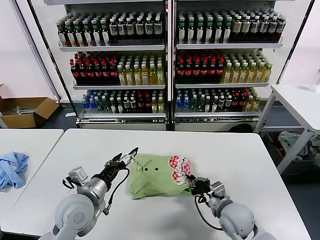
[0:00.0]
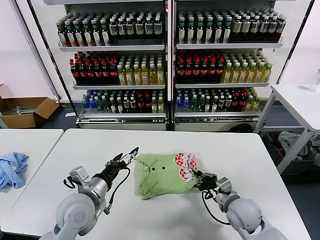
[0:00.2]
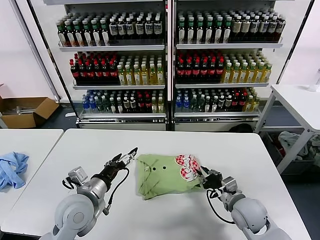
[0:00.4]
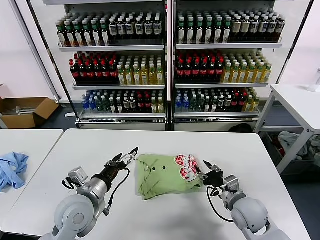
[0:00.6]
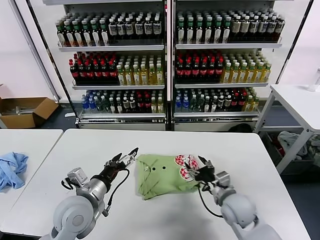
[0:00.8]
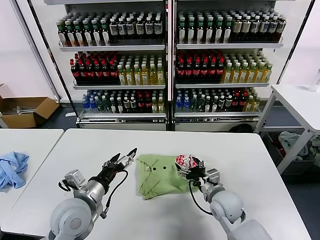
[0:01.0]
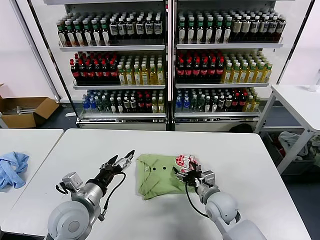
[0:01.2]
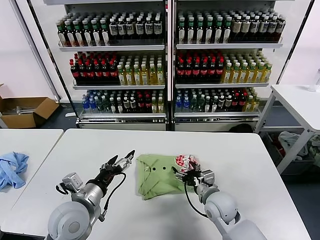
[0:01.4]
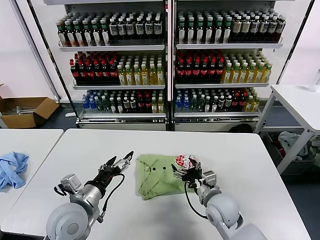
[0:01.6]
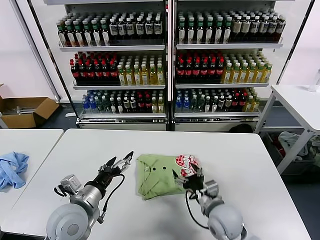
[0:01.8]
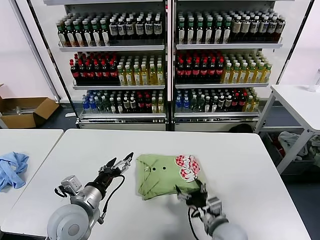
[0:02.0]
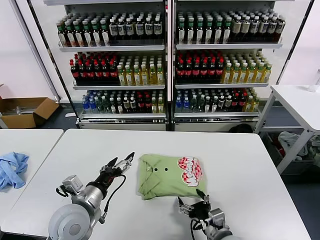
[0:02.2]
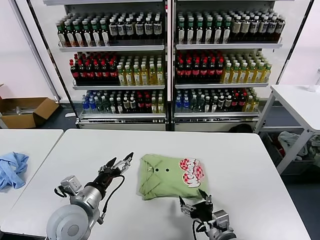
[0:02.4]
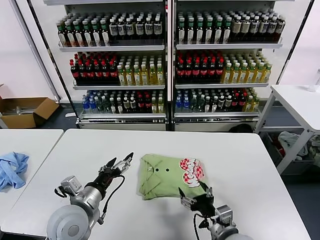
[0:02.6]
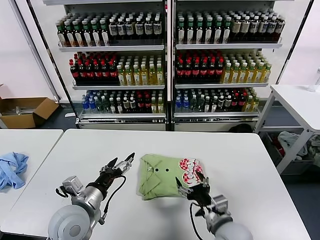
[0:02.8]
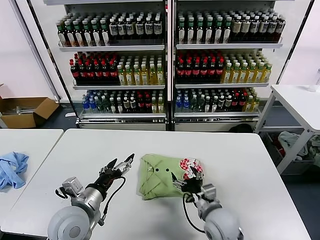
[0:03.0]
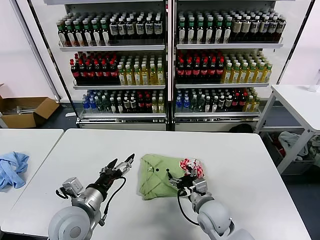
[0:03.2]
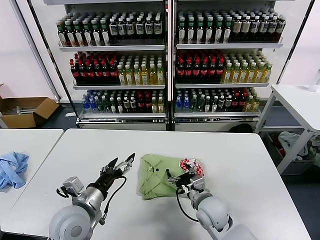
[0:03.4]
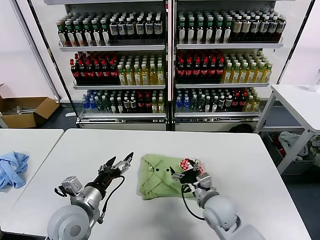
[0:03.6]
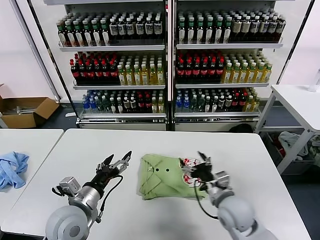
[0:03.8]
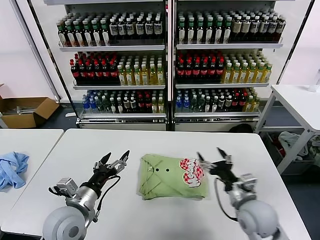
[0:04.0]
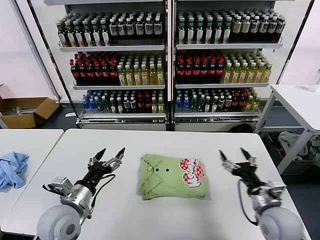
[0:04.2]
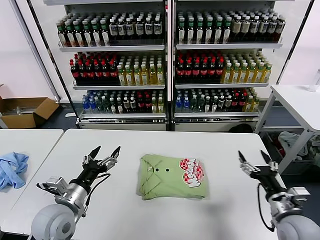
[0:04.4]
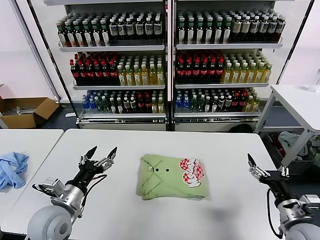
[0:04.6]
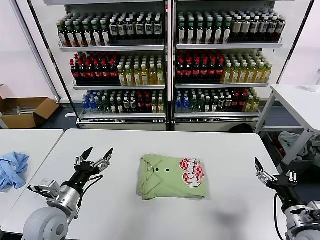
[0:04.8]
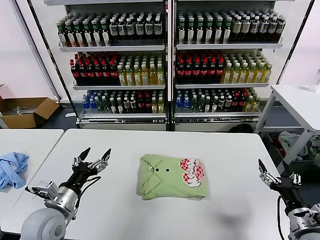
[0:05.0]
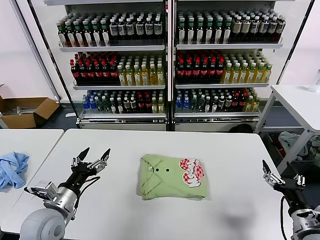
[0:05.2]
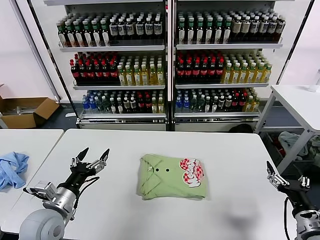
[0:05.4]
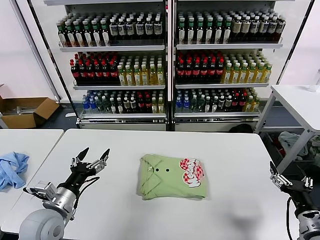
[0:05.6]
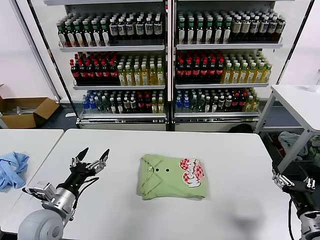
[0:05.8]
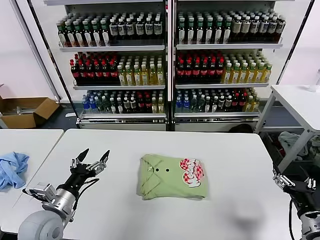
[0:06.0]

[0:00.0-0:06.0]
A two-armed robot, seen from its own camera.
Task of the whole recording: fold and organize the clothes.
Step, 0.0 to 2.6 s: Drag the clothes to the center of the table.
0.0 to 1.6 s: The right gripper moves roughly 5 cm, and opens up.
1.6 to 3.0 s: The right gripper is displaced backward by some 5 cm.
3.0 to 4.4 s: The right gripper travels to the right by roughly 15 cm.
4.4 to 6.0 s: The right gripper moves to the right and backward, about 10 cm.

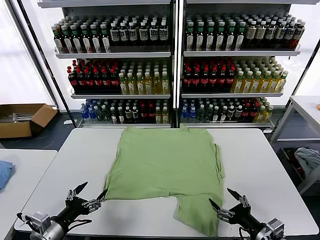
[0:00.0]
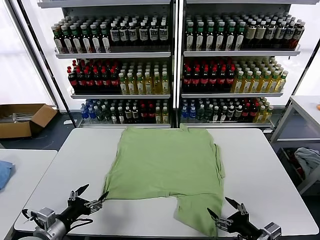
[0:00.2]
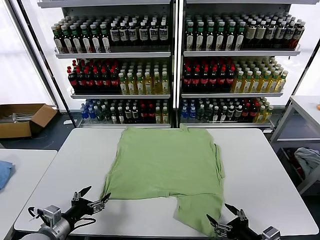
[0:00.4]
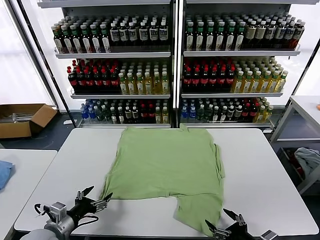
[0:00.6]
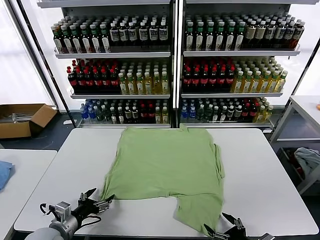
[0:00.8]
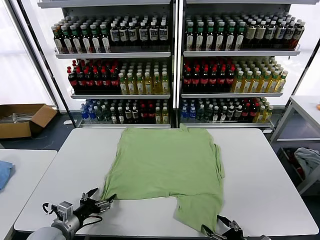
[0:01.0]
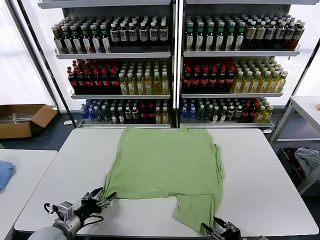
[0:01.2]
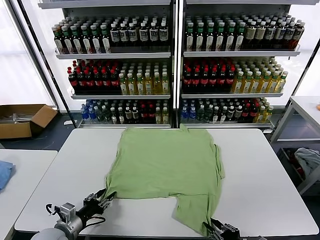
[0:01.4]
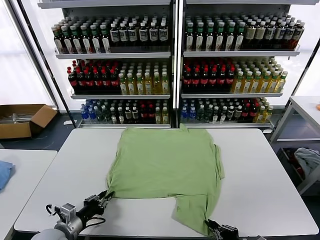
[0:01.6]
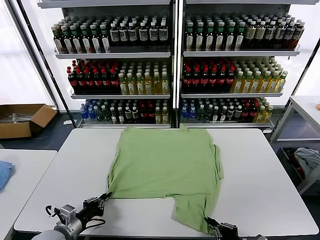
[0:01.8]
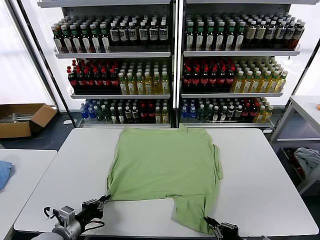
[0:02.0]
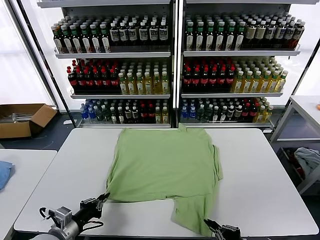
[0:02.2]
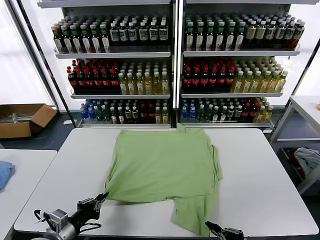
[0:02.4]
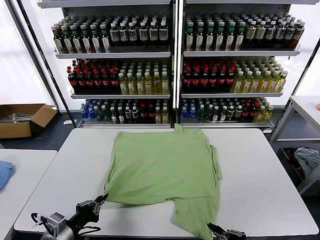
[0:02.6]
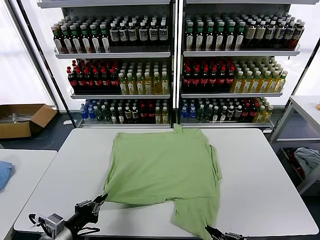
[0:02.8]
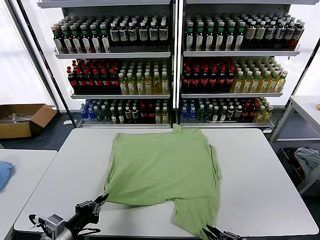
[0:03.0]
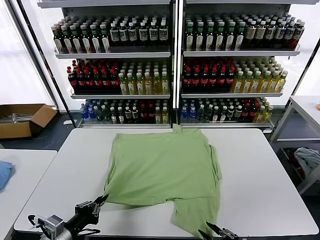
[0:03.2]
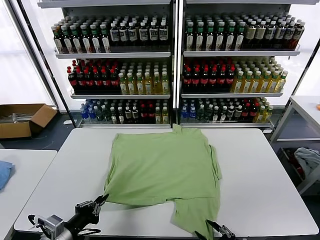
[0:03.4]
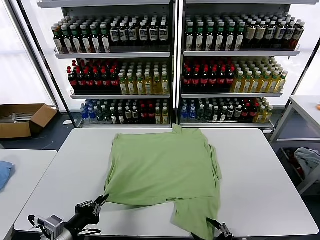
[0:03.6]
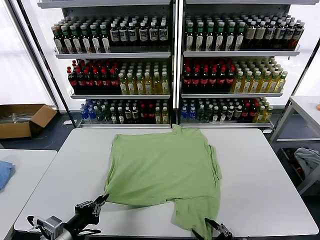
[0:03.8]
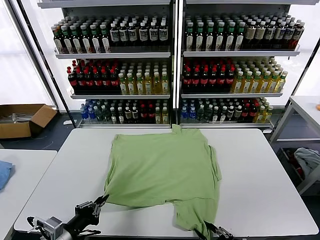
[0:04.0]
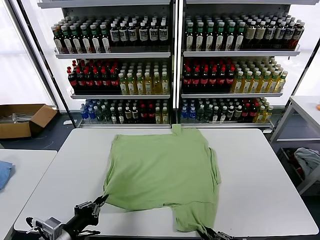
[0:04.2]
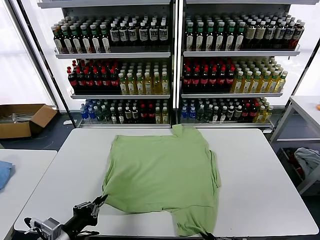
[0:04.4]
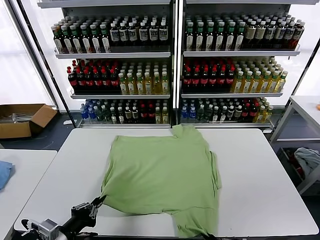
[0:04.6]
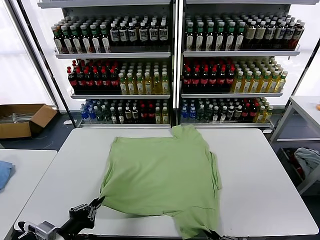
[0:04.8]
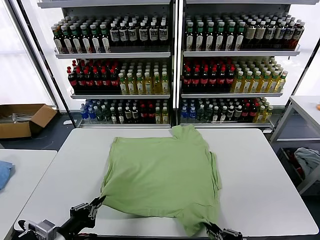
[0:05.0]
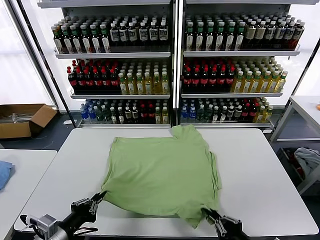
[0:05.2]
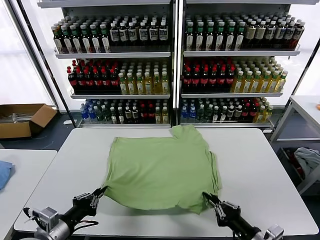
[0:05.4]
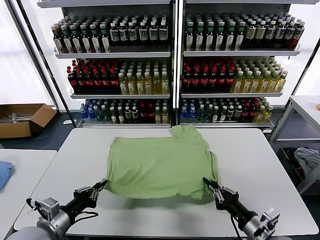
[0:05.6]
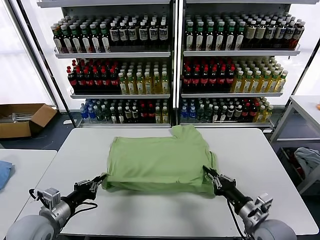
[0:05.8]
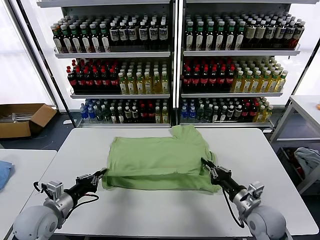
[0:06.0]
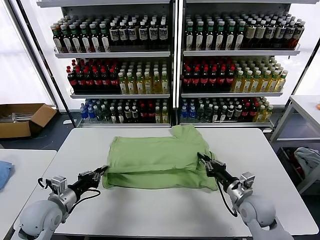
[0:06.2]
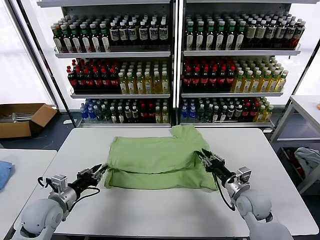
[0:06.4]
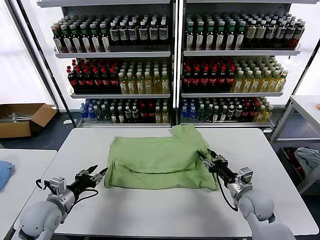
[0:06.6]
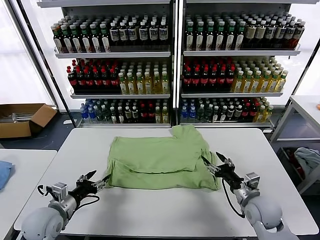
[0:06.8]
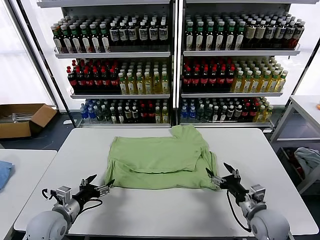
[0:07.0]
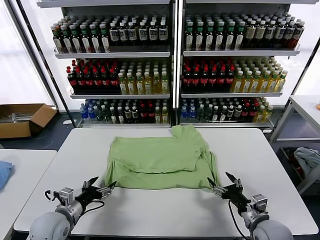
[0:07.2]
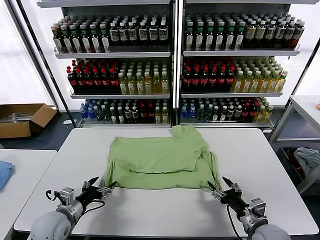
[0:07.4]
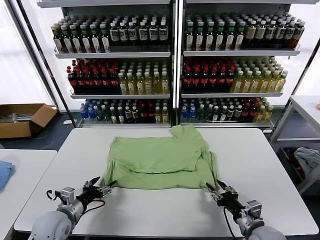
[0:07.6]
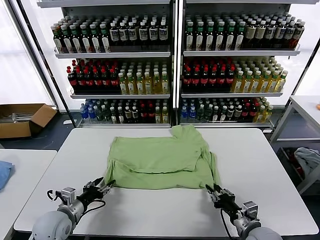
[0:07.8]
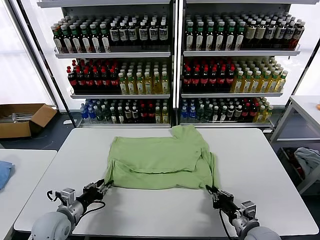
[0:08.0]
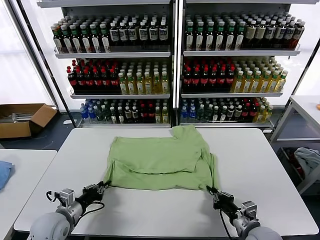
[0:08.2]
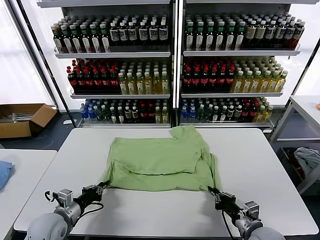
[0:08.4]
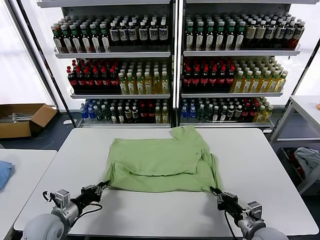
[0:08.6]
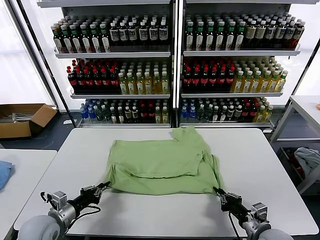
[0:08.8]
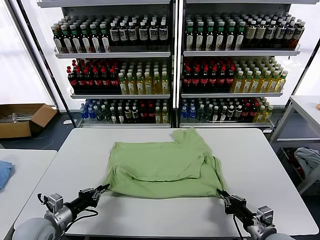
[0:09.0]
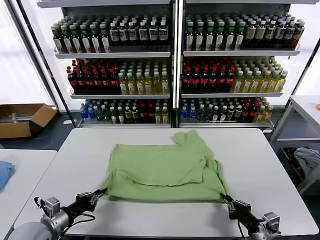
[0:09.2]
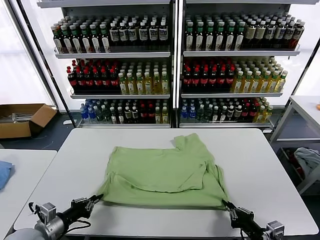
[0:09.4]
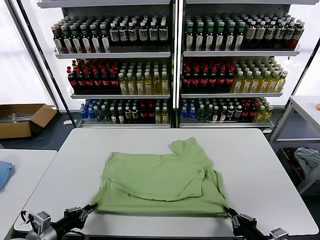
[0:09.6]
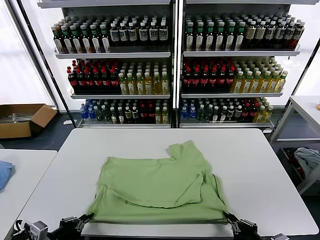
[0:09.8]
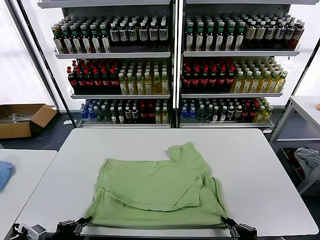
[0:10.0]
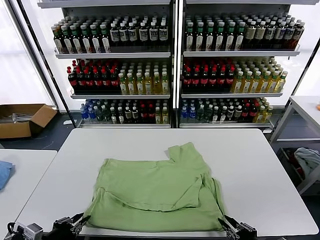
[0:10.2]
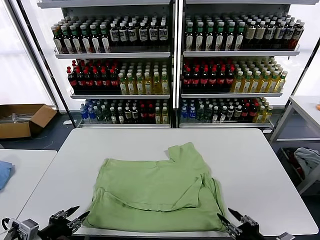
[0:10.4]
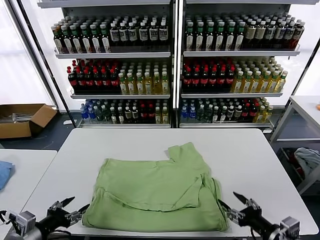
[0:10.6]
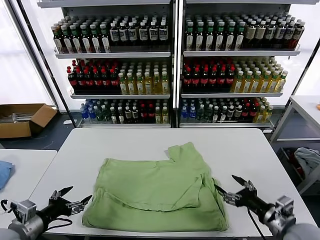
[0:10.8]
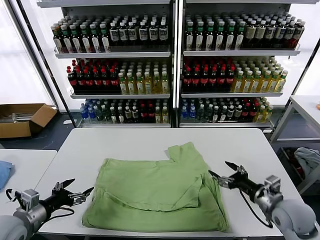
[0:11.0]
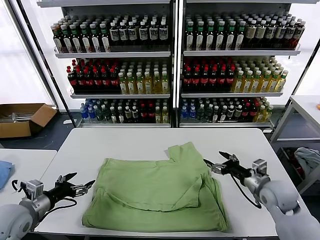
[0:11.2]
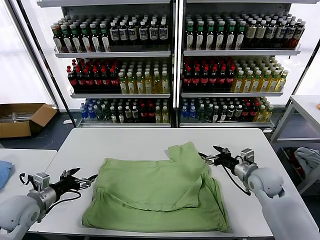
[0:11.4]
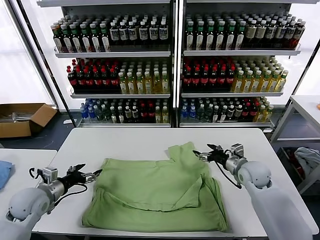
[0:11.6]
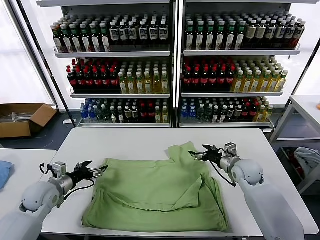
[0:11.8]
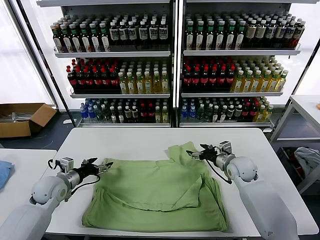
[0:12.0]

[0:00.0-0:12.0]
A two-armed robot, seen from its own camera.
Task of the whole recording: fold and organize the clothes.
Step, 0.0 to 1.8 s: use both grippers simultaneously to clamp the lower edge of the clothing fabric.
Step, 2.0 to 6.6 s: use both grippers to drag the lower edge of the fabric forward and fold it over the upper edge.
Step, 7.0 to 10.4 s: Drag the clothes downward with both gripper.
1.6 to 3.0 s: The right gripper opens; the left gripper travels upward and backward by roughly 10 cm.
3.0 to 4.4 s: The right gripper closes its fingers.
4.4 to 6.0 s: The right gripper moves forward, approximately 20 cm; the left gripper is displaced forward by about 10 cm.
6.0 to 7.6 s: The right gripper heads backward, covering approximately 5 cm, and opens up. The left gripper moves downward, approximately 5 cm, and opens.
7.6 to 9.0 s: The right gripper ends up roughly 5 cm from where it was, and closes its fingers; the left gripper closes up.
9.0 to 10.4 s: The right gripper is displaced upward and backward by about 10 cm, and opens its fingers. The left gripper moves backward and upward, approximately 10 cm, and opens up.
10.4 to 12.0 s: The grippers both shift forward by approximately 30 cm. The left gripper opens. Meanwhile the right gripper opens.

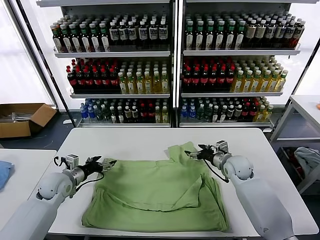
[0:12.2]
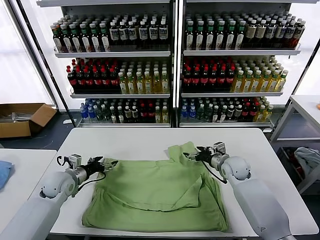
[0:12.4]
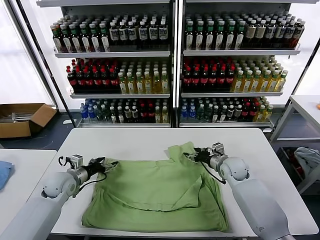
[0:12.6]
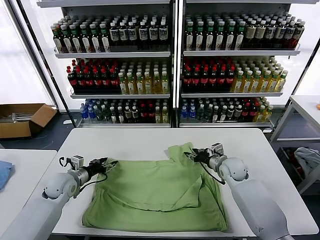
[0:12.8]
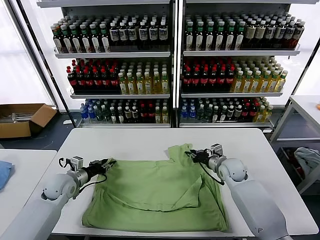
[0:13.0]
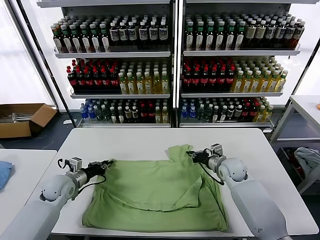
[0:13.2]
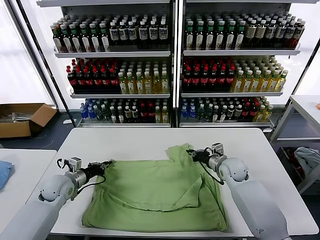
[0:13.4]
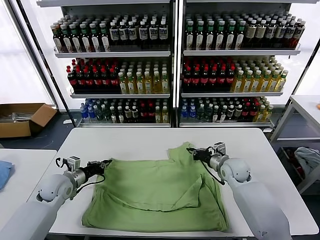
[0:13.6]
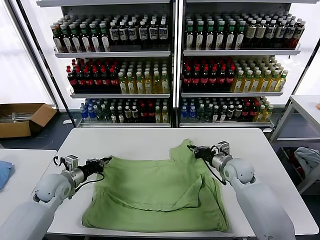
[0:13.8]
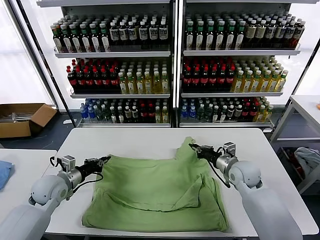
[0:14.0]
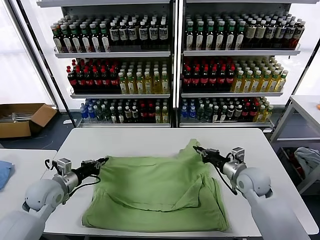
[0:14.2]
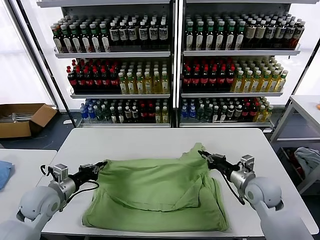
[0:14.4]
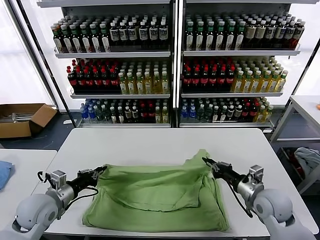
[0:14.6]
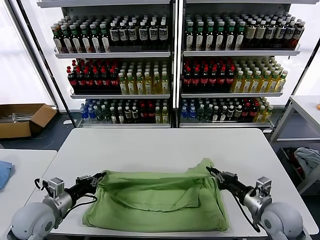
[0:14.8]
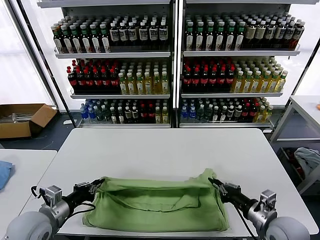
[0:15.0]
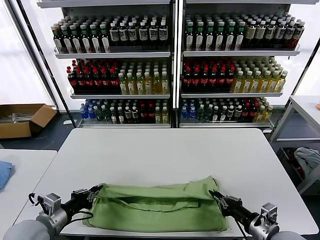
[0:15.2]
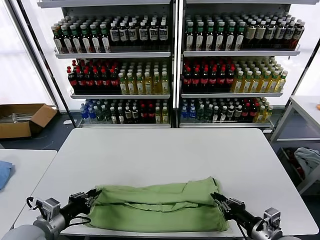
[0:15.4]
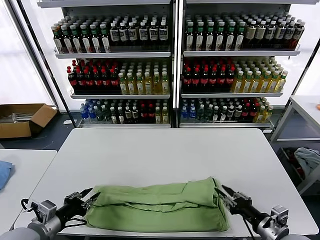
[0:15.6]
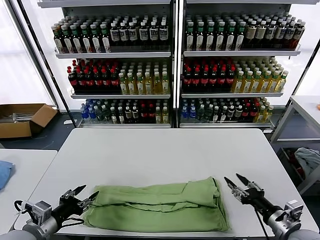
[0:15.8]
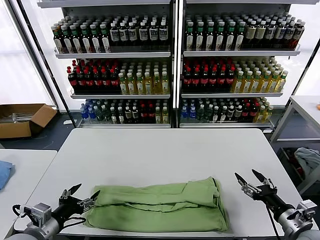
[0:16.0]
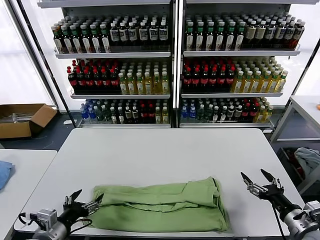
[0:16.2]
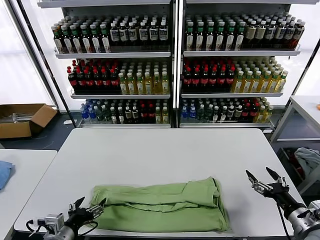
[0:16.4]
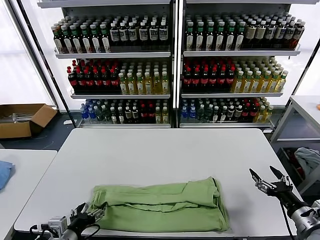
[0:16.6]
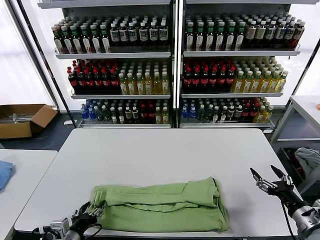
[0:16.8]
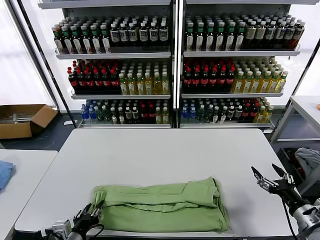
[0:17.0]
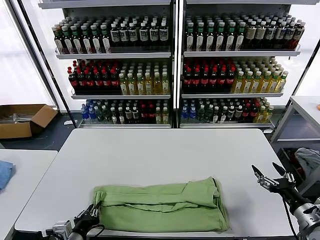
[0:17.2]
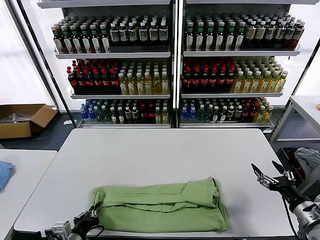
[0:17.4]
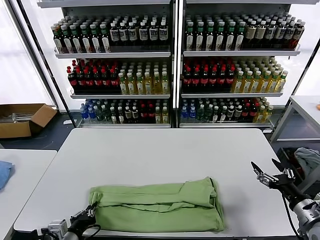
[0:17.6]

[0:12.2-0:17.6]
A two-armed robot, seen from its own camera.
Task of the whole recording: fold and organize the clothes.
Step, 13.4 to 15.6 s: use both grippers to drag the upper edge of the fabric backward and fold it over the lower edge.
Step, 15.8 to 17.4 s: use the left gripper to clamp the left edge of the fabric.
12.2 to 13.6 s: The left gripper closes up. The right gripper closes up.
13.6 to 15.0 s: The right gripper moves backward, some 25 cm. Meanwhile the left gripper moves backward, some 15 cm.
15.0 to 16.2 s: The left gripper is displaced backward by some 5 cm, and opens up. The right gripper moves to the right, about 10 cm, and opens up.
16.2 to 17.6 s: The left gripper shifts about 5 cm downward, and closes.
